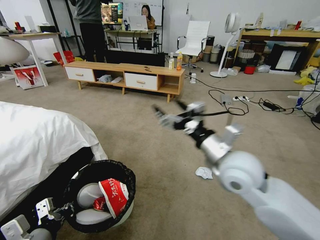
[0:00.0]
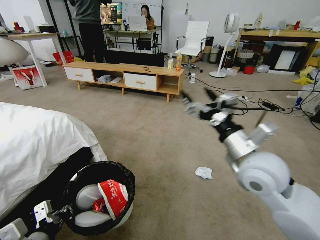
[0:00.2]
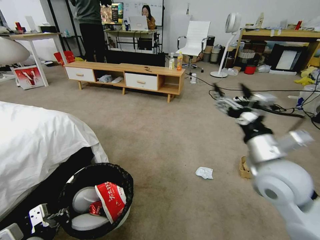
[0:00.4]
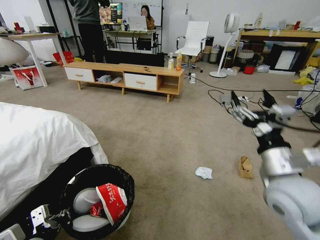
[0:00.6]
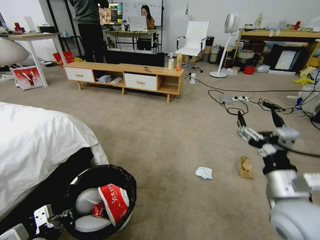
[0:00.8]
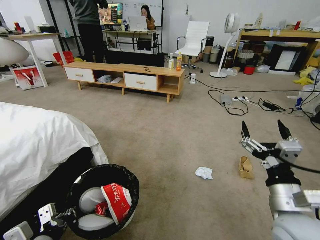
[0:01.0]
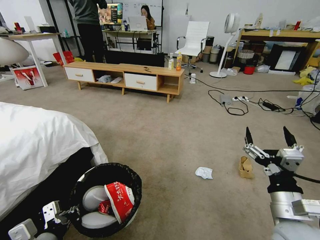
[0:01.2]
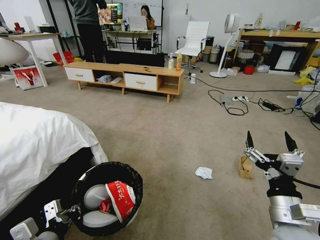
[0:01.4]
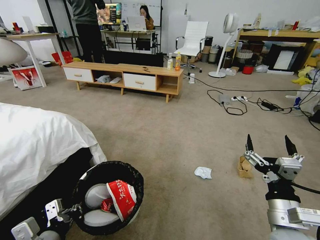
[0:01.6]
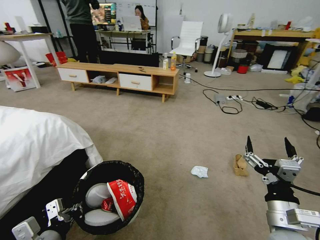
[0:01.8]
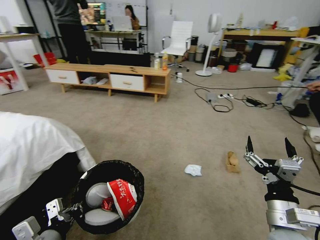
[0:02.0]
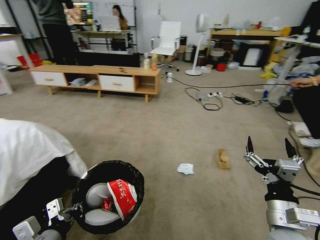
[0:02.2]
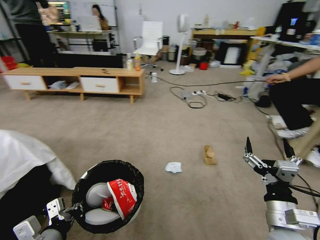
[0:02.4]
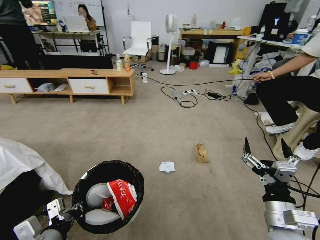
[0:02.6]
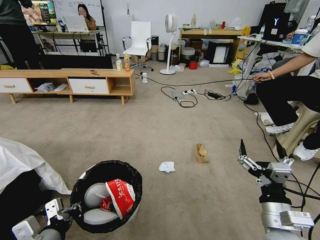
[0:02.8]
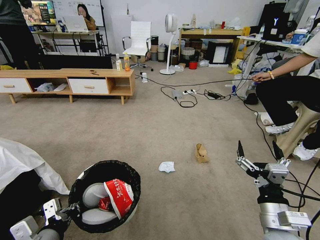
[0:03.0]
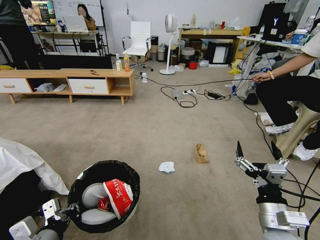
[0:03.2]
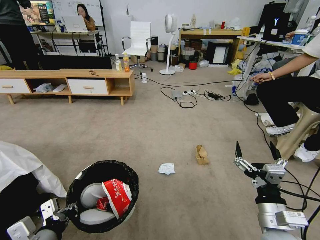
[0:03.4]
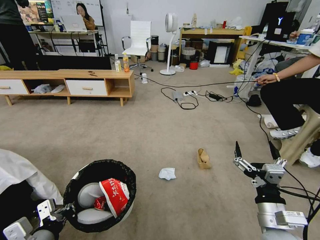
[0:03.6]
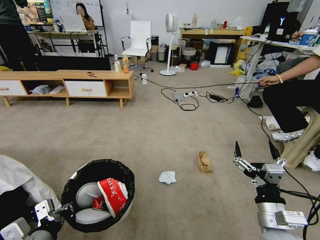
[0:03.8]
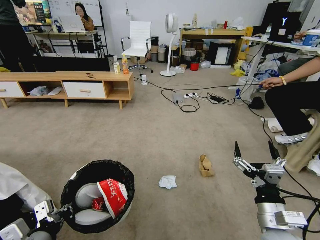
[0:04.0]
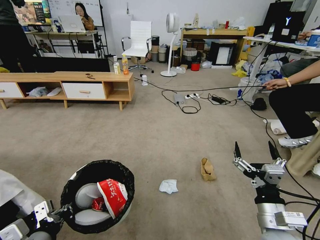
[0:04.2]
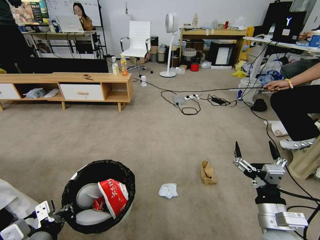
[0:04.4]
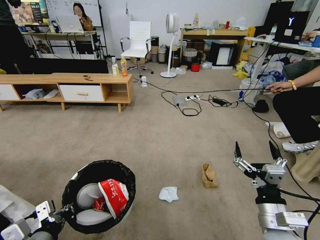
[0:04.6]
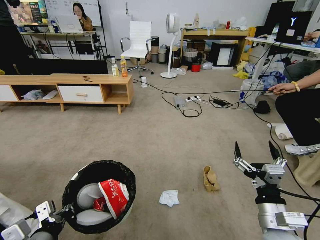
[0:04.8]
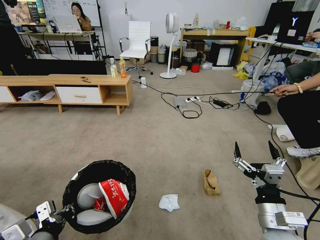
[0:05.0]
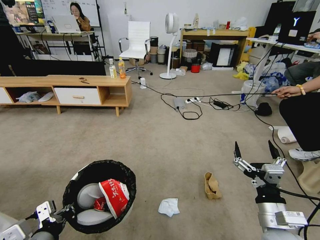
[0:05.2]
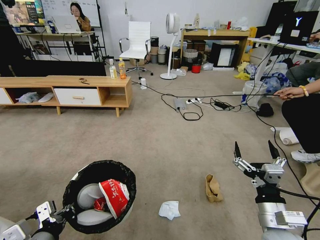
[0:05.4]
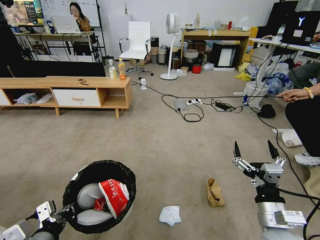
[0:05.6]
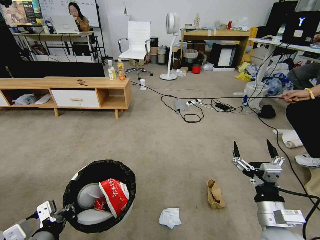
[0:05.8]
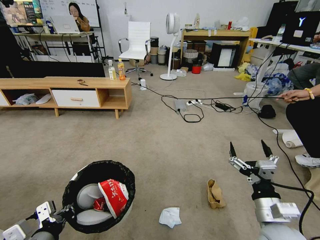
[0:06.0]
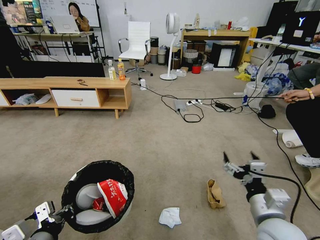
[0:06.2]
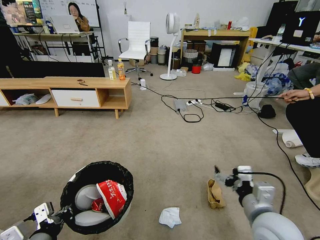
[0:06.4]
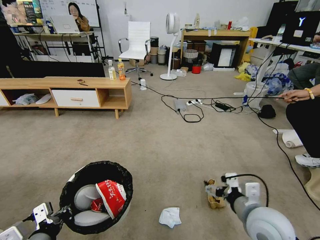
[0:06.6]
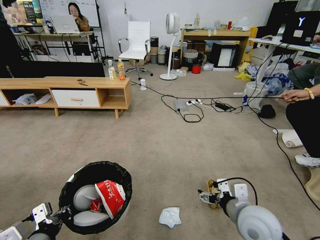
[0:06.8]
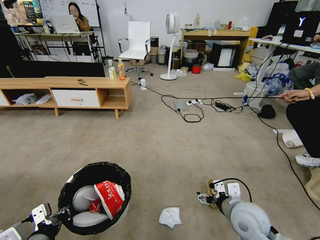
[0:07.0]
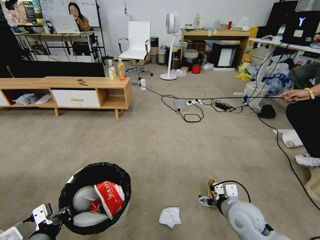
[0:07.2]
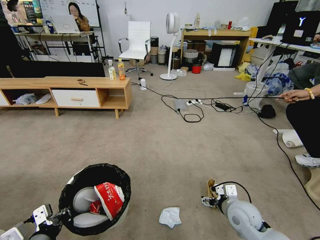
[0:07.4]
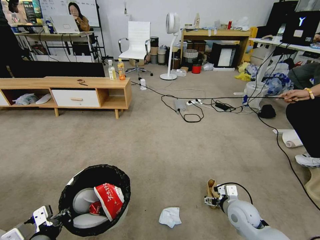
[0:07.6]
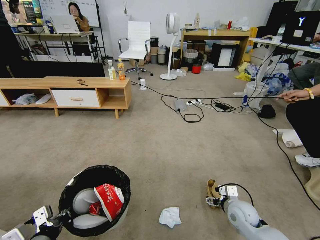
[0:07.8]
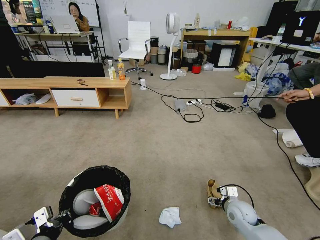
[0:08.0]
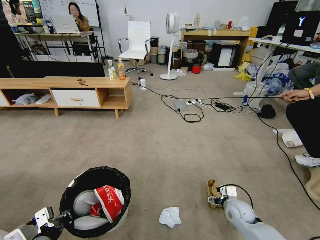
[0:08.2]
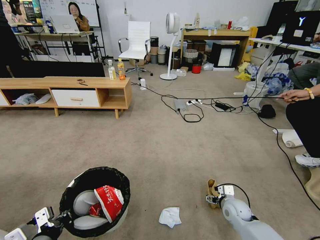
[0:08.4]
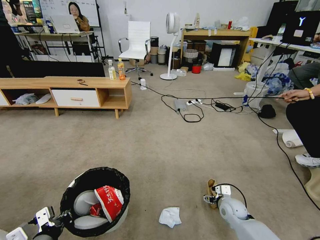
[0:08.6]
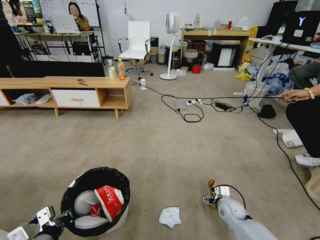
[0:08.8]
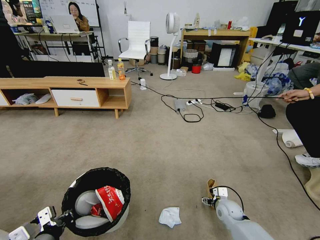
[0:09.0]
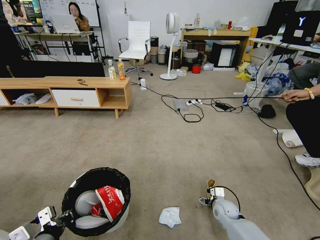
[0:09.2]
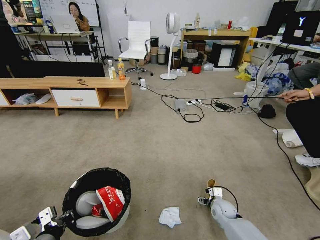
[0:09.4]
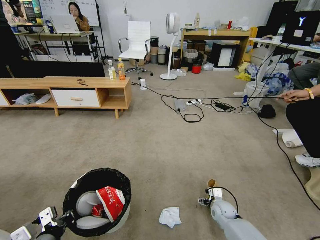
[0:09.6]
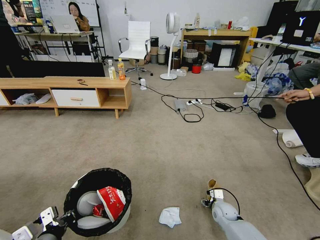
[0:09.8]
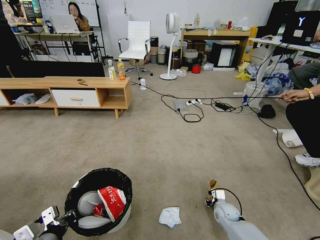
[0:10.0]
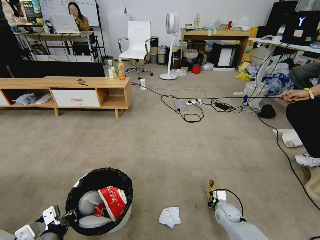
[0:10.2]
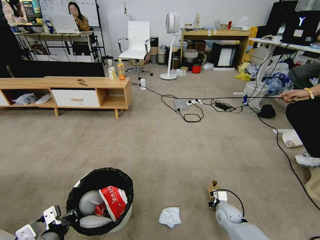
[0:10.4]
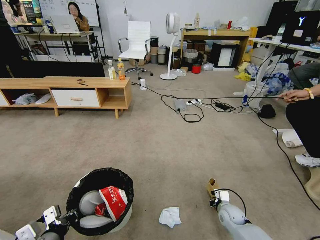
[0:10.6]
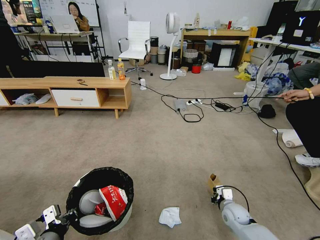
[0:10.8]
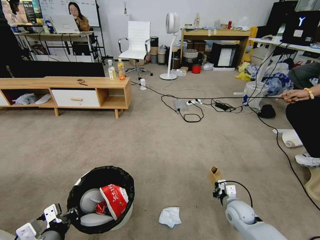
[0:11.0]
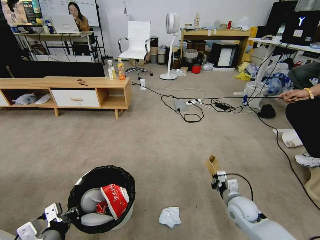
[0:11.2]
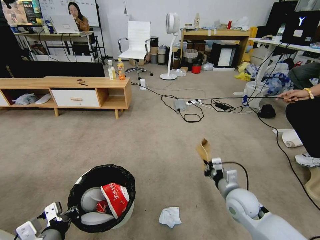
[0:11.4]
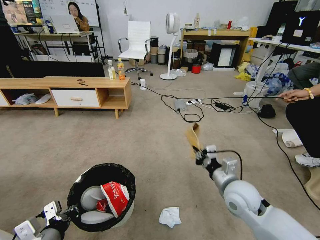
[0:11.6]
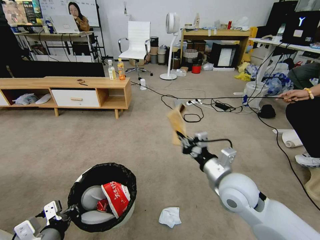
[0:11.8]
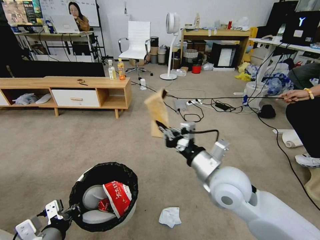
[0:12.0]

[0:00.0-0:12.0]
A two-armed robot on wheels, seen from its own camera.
Task of the whole recording: Pick up the trash bin and place the garbage on the floor into it.
0:00.0 to 0:01.6: The right gripper is displaced backward, downward and to the right by about 20 cm.
0:06.0 to 0:07.6: The right gripper goes about 15 cm forward and downward.
0:07.6 to 0:09.0: The right gripper moves downward and forward, roughly 10 cm.
0:09.0 to 0:10.4: The right gripper closes its fingers.
0:10.4 to 0:12.0: The right gripper goes roughly 35 cm upward.

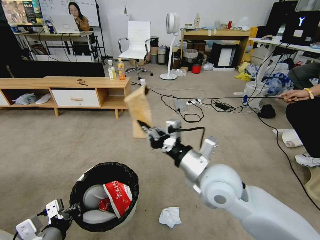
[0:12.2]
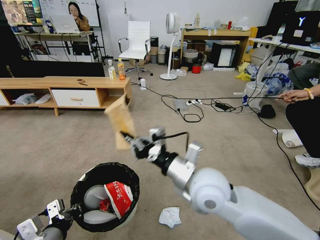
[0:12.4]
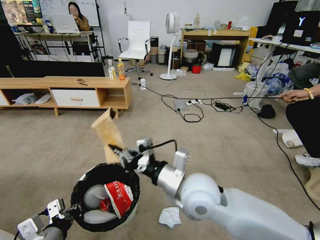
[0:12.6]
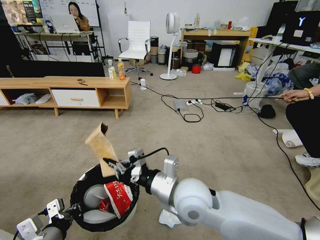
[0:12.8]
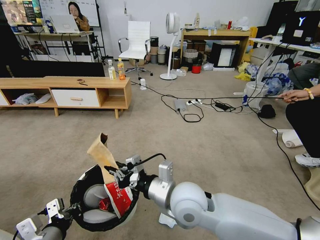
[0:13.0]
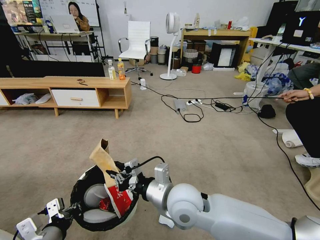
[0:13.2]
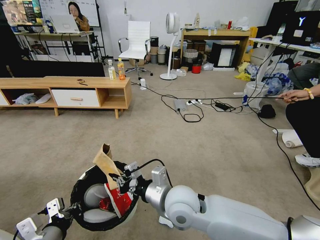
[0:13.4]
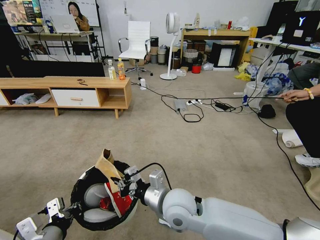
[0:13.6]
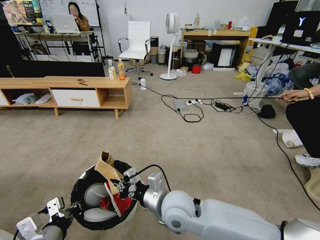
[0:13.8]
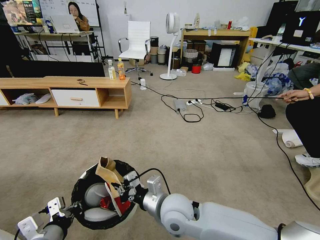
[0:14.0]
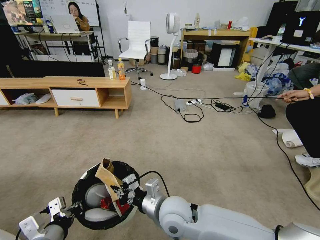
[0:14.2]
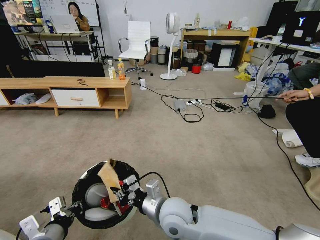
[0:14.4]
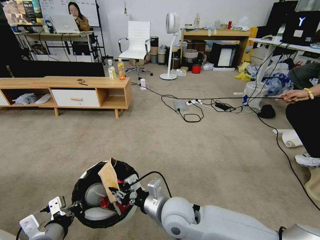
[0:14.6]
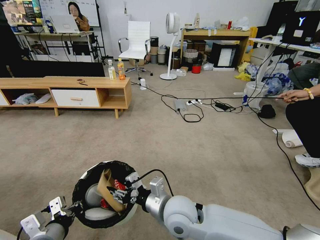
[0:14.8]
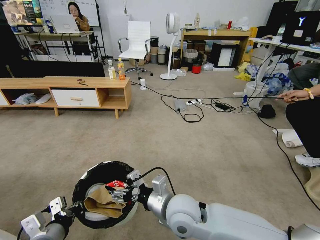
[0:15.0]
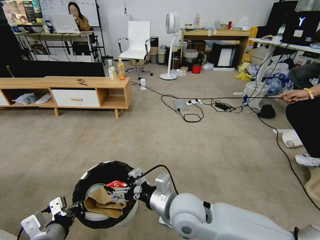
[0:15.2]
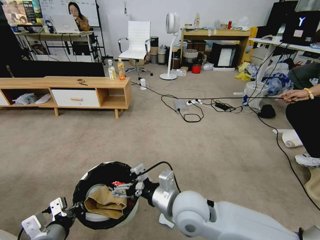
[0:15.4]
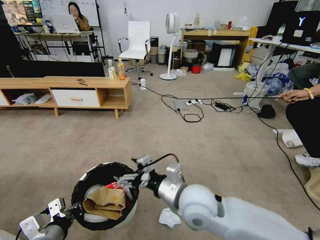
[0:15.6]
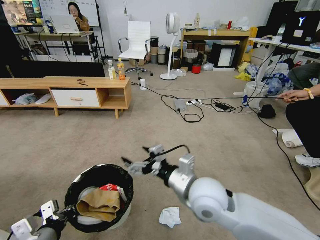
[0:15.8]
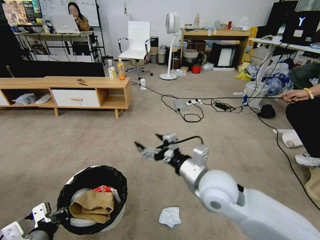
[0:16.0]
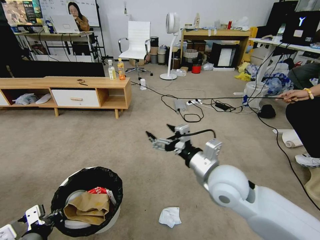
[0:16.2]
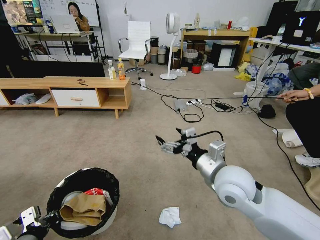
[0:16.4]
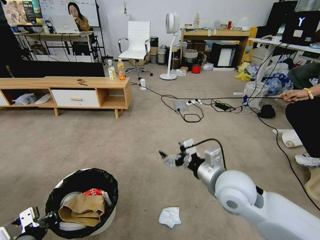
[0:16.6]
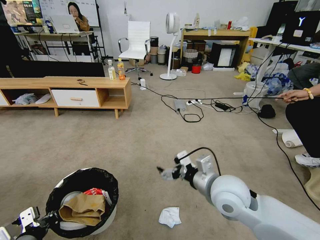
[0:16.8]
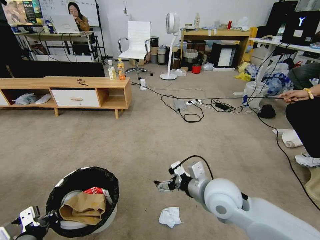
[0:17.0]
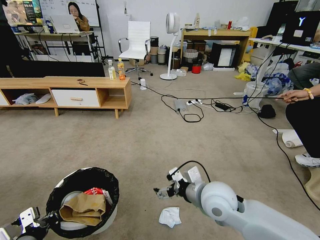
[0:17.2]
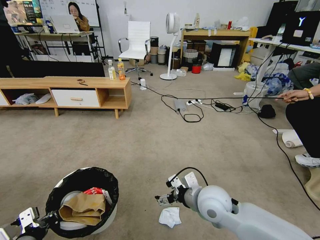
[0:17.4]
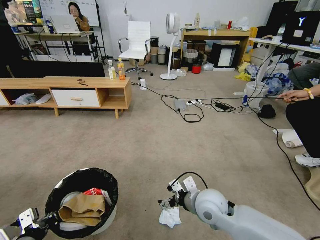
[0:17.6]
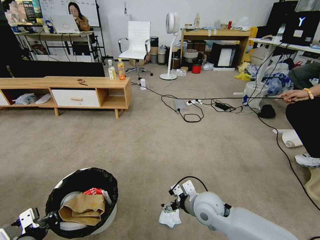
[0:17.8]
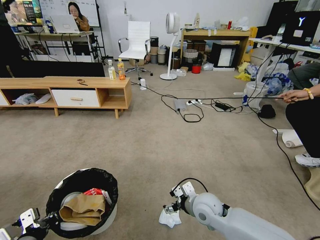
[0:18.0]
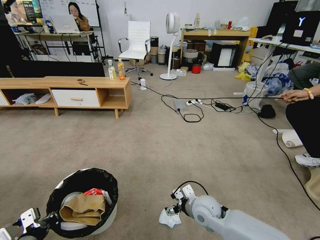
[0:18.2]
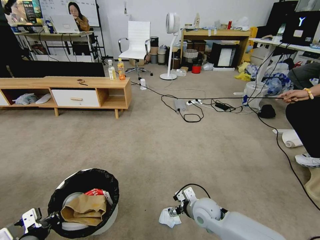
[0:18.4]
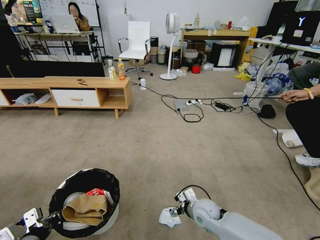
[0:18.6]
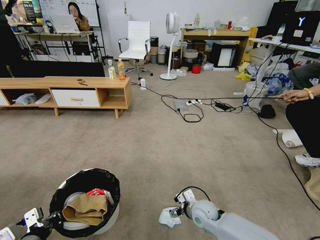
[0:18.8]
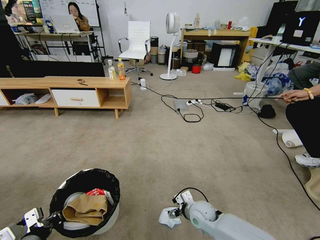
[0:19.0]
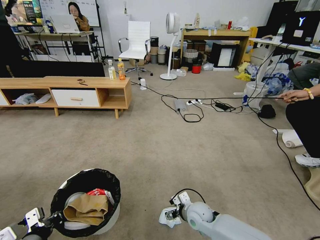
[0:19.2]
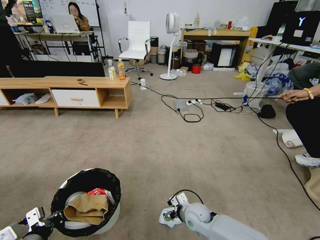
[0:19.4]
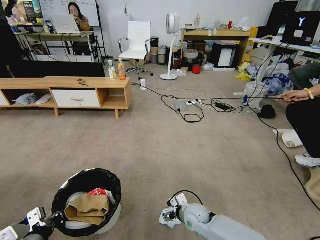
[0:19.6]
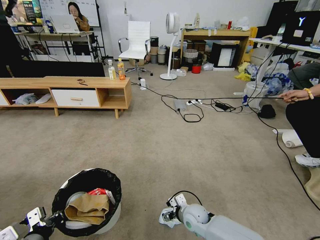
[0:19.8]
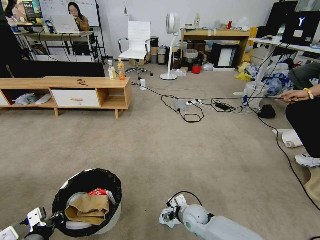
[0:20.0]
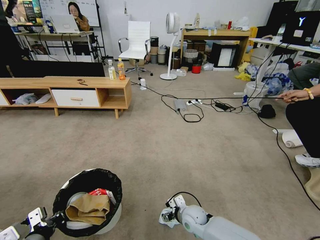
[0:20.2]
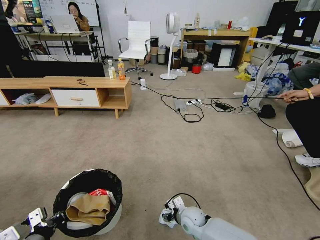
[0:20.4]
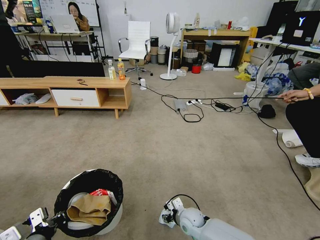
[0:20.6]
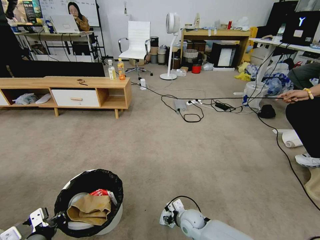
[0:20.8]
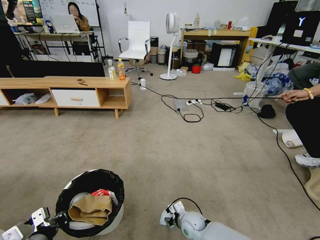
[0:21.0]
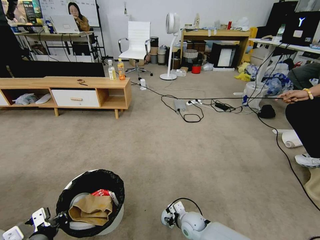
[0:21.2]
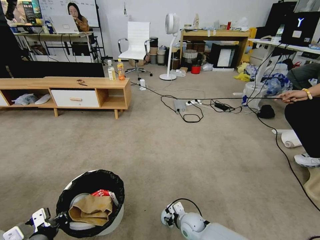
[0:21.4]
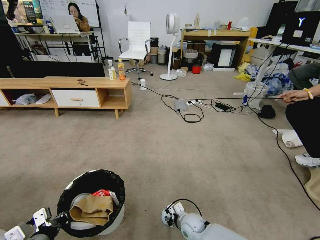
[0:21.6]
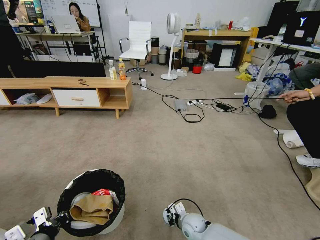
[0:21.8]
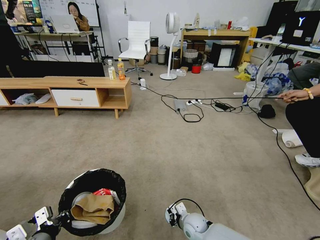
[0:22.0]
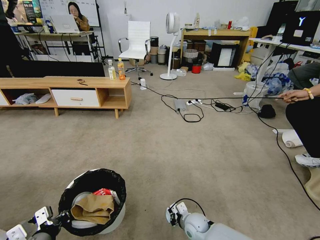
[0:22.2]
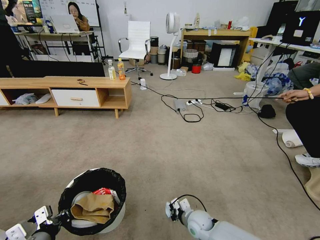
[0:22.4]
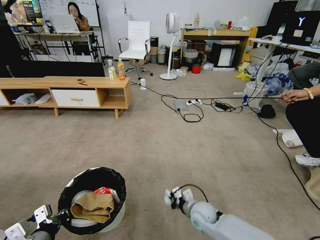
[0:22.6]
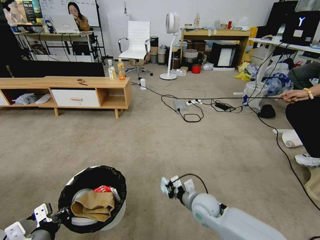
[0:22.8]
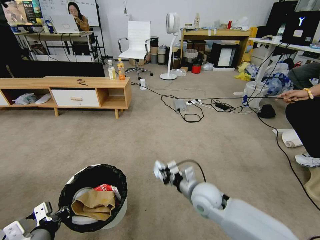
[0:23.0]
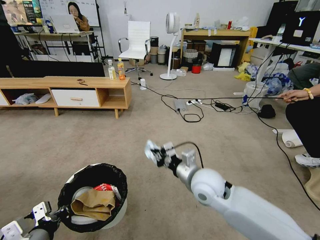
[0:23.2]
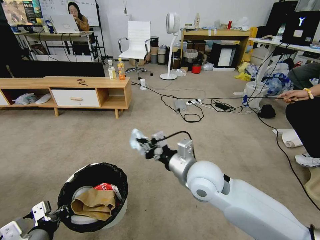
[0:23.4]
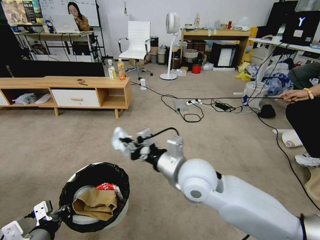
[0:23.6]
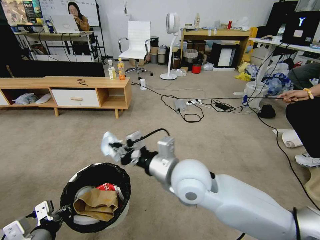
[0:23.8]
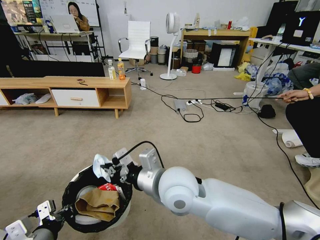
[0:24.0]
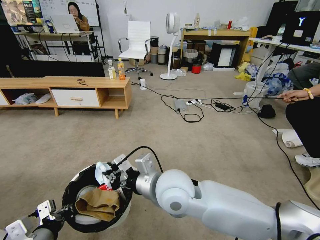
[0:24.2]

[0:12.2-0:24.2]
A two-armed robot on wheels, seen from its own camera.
Task of the whole recording: Pick up the trash bin and place the garbage on the floor into it.
0:12.2 to 0:13.8: The right gripper travels downward and to the left by some 15 cm.
0:13.8 to 0:15.2: The right gripper opens.
0:15.2 to 0:16.6: The right gripper moves to the right and upward, some 15 cm. Meanwhile the left gripper is displaced to the left by about 5 cm.
0:16.6 to 0:18.2: The right gripper goes roughly 20 cm downward.
0:18.2 to 0:19.8: The right gripper travels downward by approximately 10 cm.
0:19.8 to 0:21.2: The right gripper is displaced downward by some 5 cm, and closes up.
0:21.2 to 0:22.6: The right gripper moves upward, about 5 cm, and closes up.
0:22.6 to 0:24.2: The right gripper goes about 30 cm upward and to the left.
